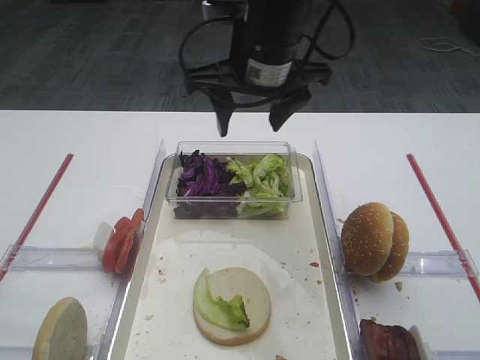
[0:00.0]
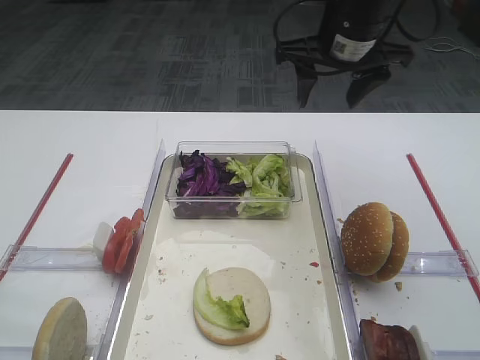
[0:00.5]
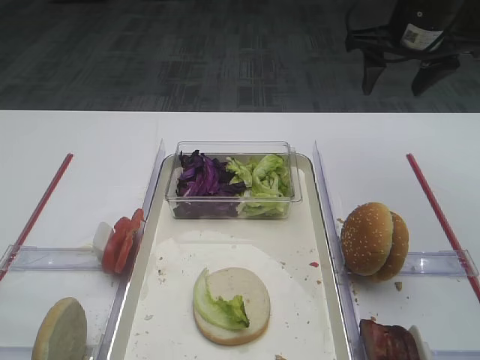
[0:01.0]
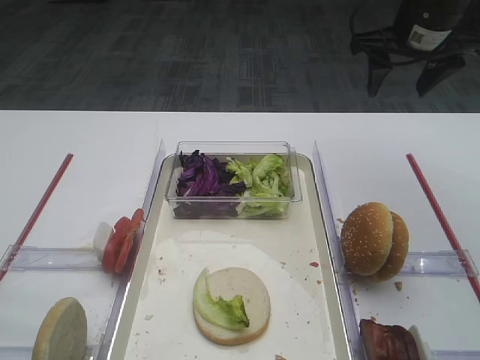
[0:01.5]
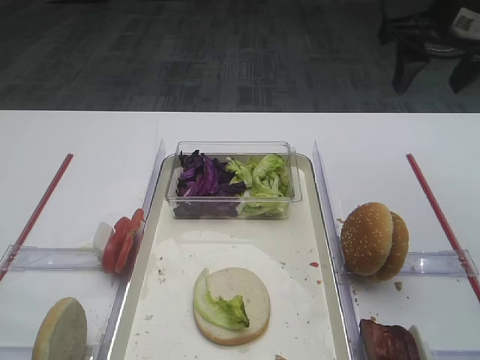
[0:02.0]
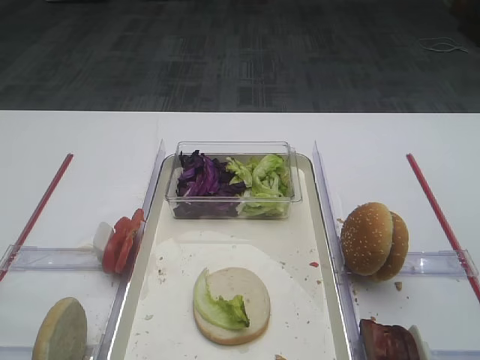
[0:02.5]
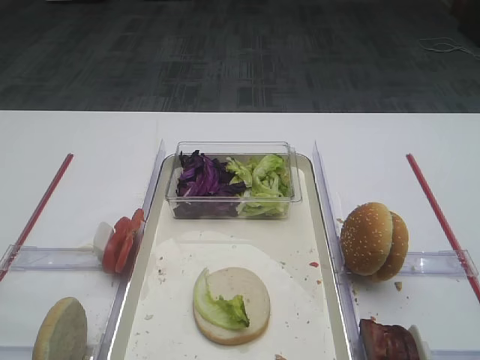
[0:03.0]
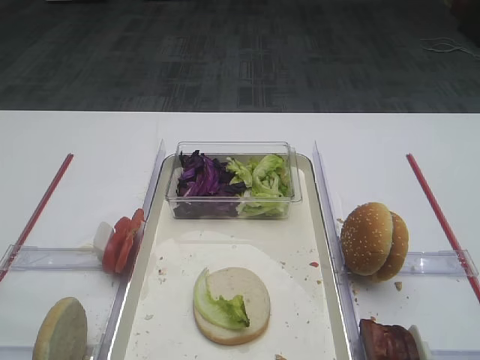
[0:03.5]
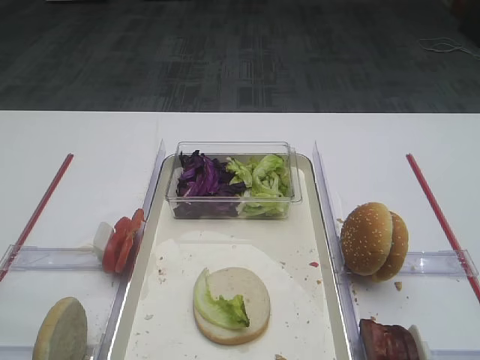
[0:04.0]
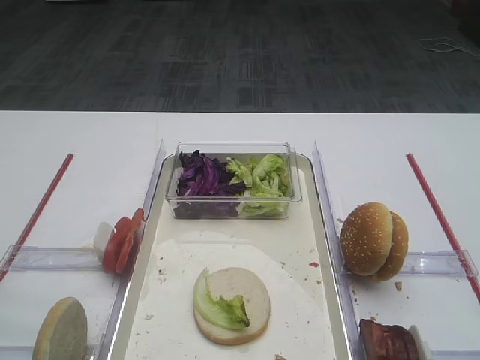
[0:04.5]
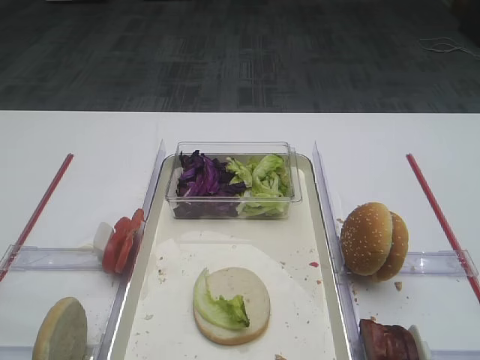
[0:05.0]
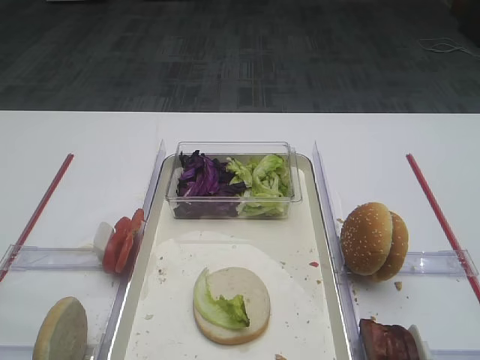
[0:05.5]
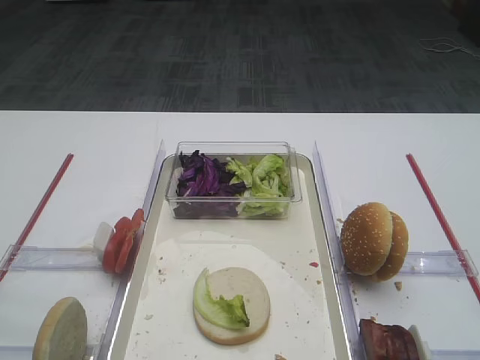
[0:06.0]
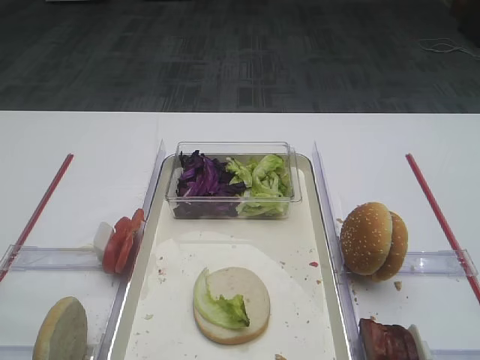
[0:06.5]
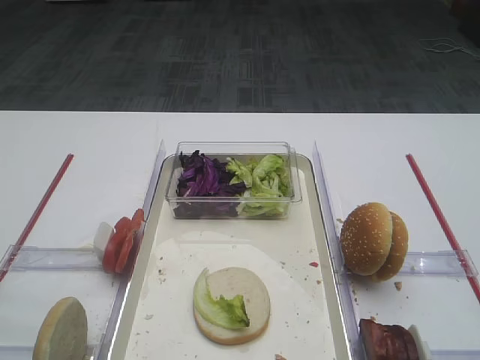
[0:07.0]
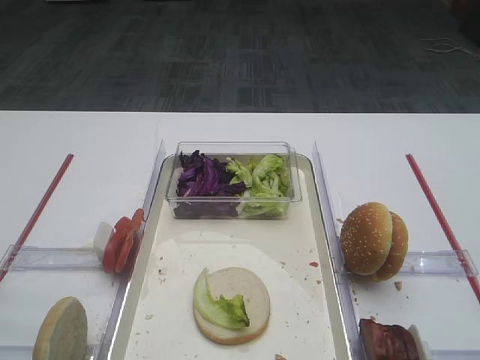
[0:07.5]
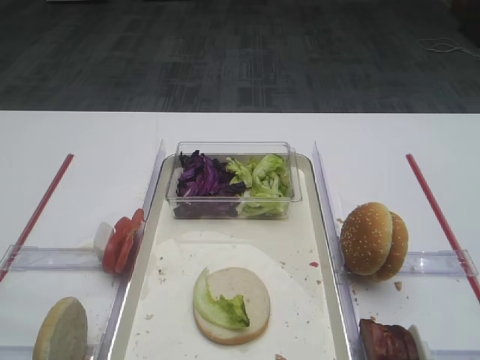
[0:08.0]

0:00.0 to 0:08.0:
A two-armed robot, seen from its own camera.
0:00.0 to 0:02.0: The right gripper is displaced to the right by roughly 20 cm.
0:02.0 to 0:04.0: The right gripper moves backward, some 40 cm.

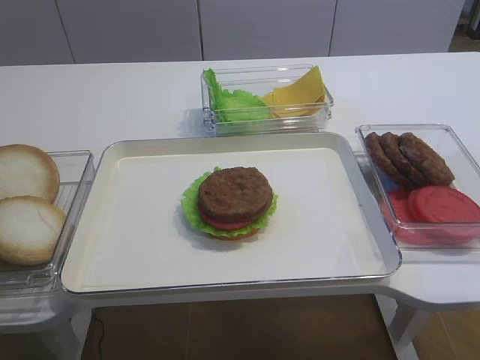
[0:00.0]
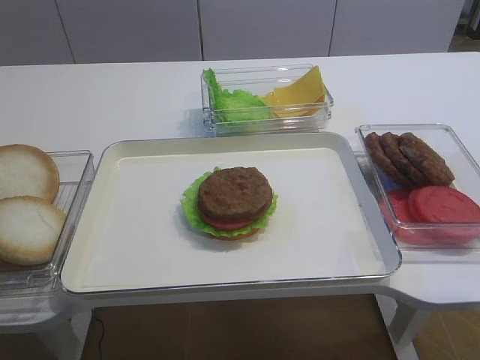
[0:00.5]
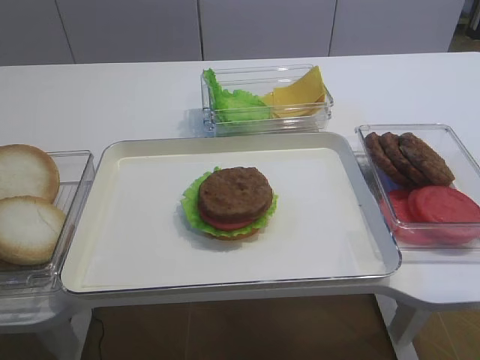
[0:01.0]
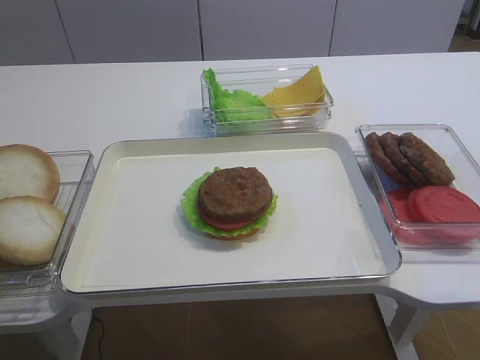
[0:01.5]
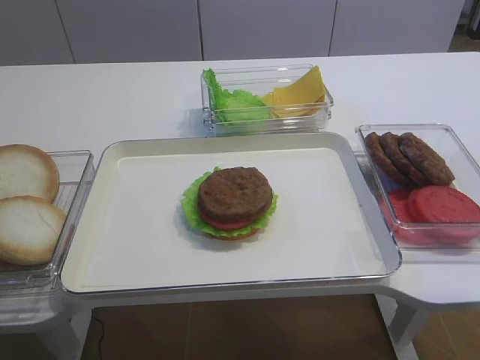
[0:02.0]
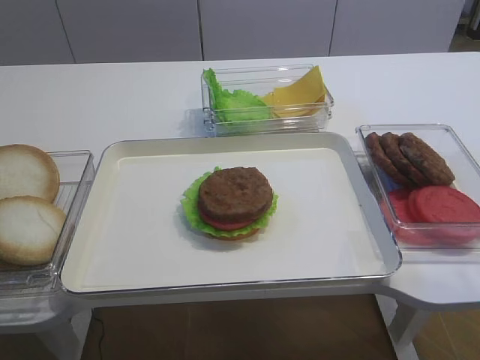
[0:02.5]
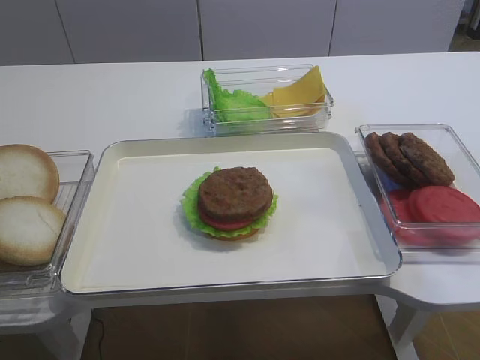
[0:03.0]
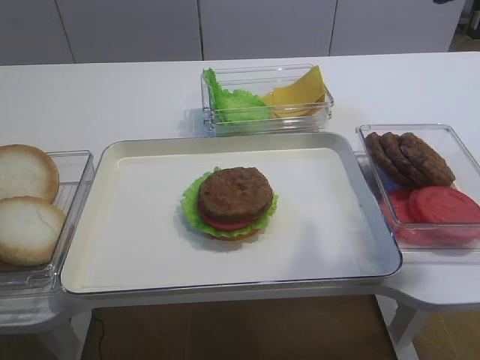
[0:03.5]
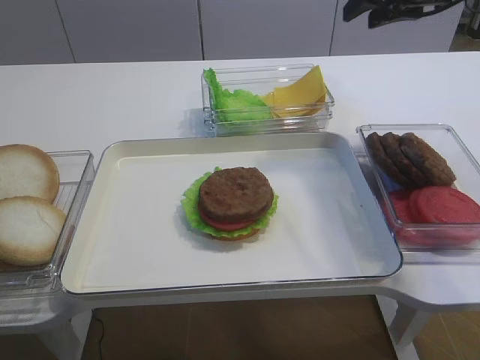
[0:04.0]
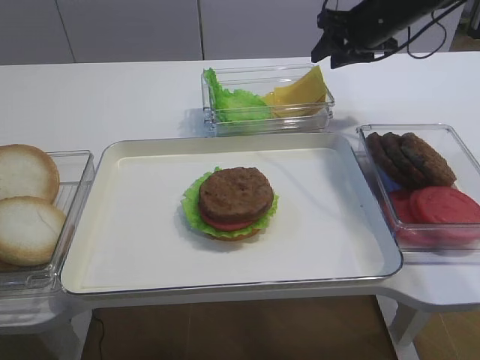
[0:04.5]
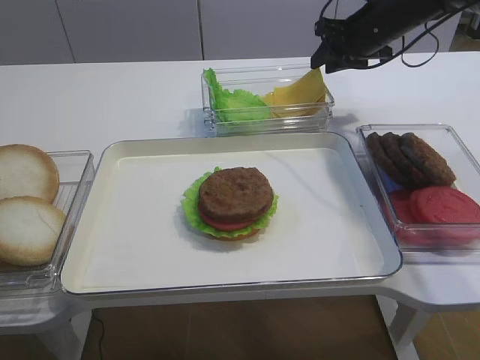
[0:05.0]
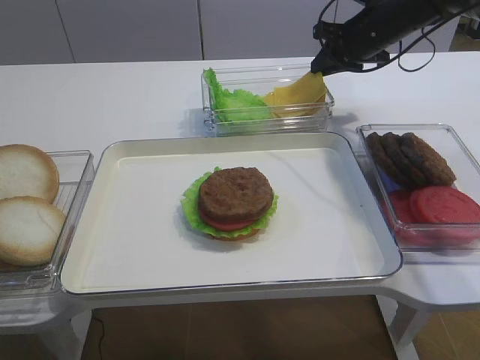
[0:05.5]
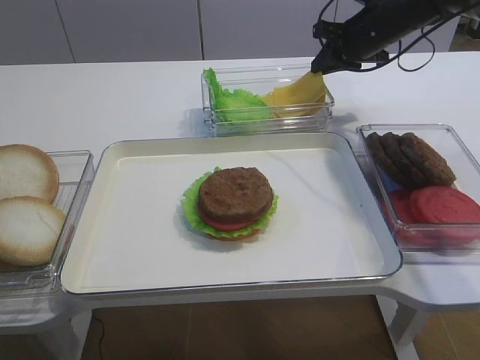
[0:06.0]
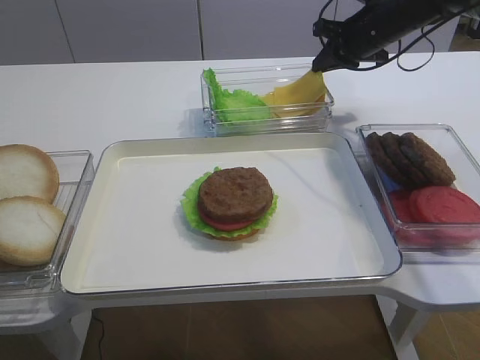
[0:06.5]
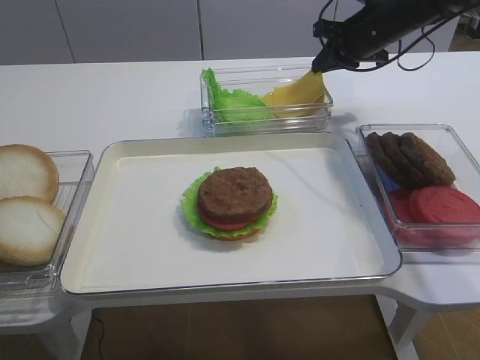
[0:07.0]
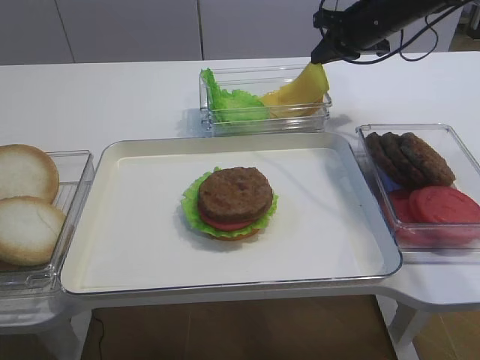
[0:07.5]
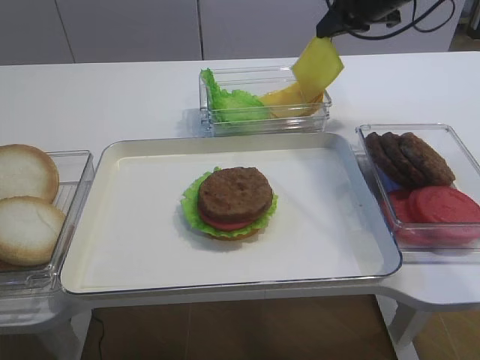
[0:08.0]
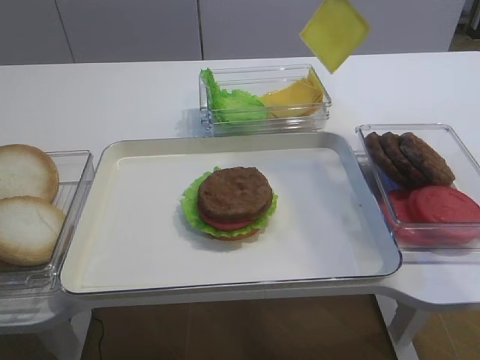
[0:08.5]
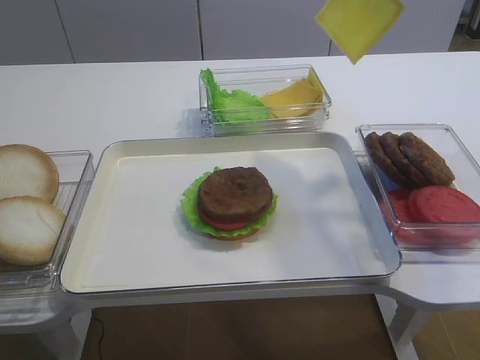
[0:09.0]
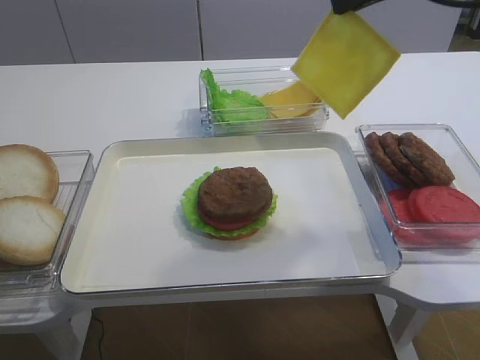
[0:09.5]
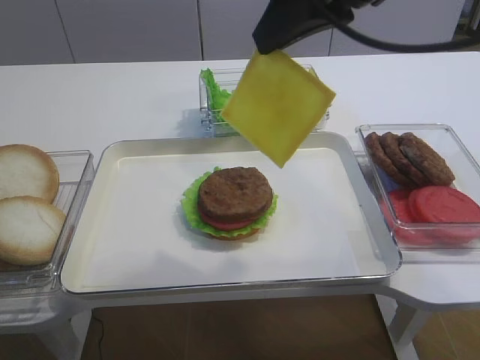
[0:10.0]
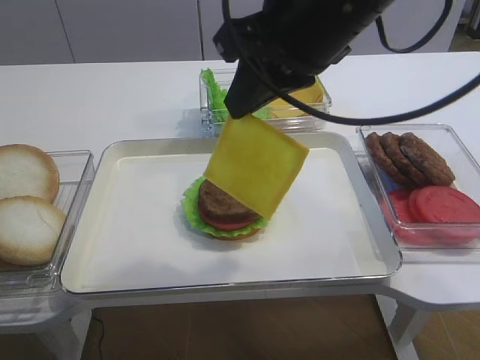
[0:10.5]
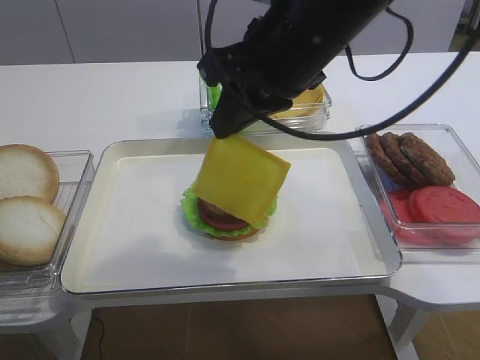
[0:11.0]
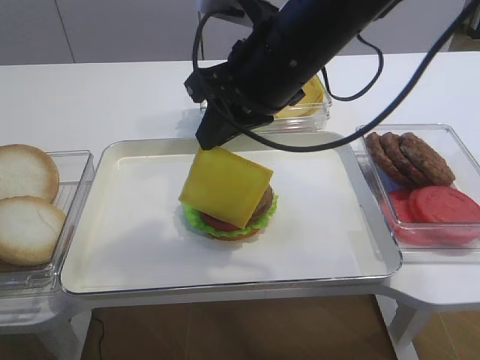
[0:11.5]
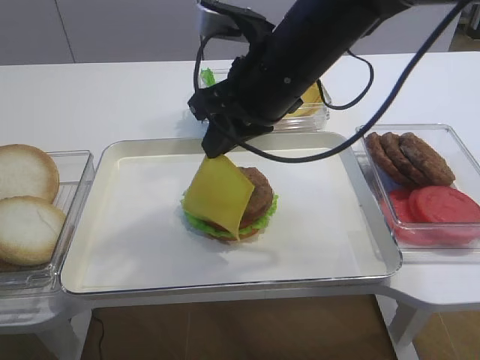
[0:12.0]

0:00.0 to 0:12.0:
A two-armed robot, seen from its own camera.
Step, 0:00.0 to 0:08.0: Pick up the cheese slice with the right gripper.
0:02.0 to 0:04.0: The right gripper is displaced forward by roughly 40 cm.
0:04.0 to 0:06.0: The right gripper shifts roughly 15 cm downward and forward, and closes.
0:06.0 to 0:08.0: The right gripper shifts about 5 cm upward.
0:08.0 to 0:10.0: The right gripper is displaced backward and upward by about 25 cm.
0:10.0 to 0:12.0: The right gripper goes roughly 15 cm downward and to the left.

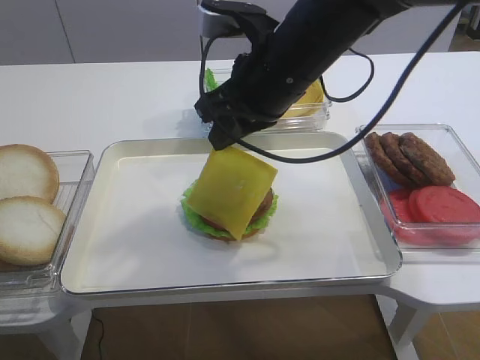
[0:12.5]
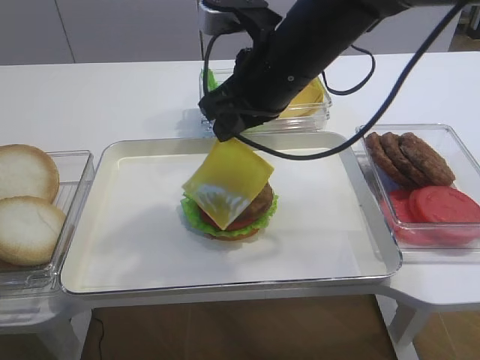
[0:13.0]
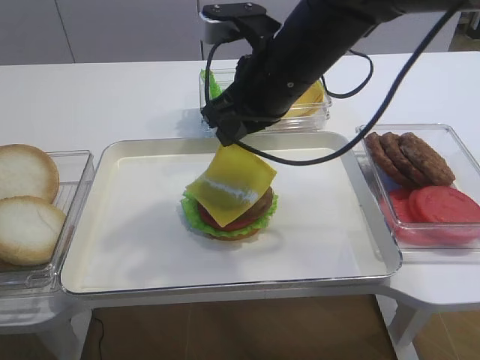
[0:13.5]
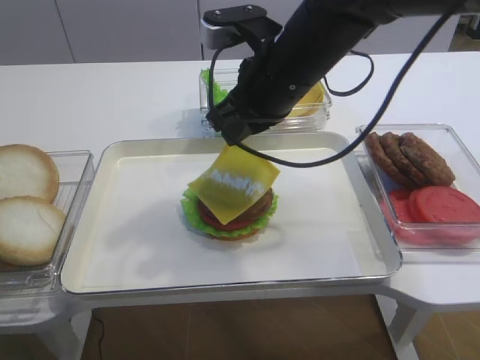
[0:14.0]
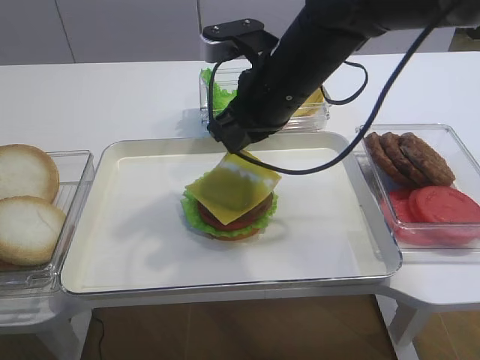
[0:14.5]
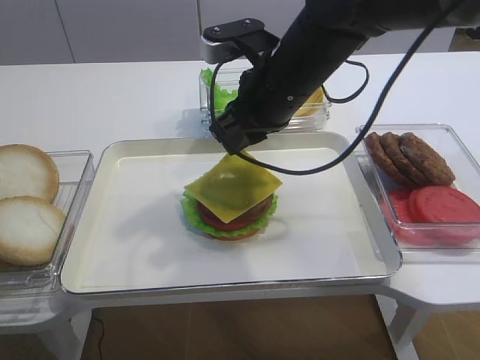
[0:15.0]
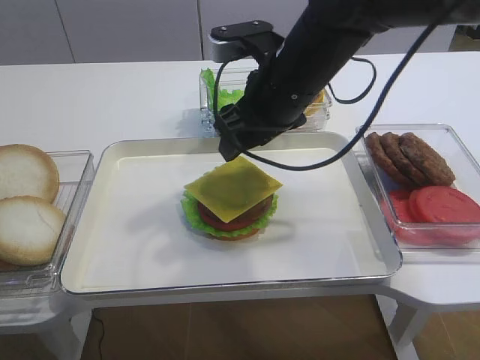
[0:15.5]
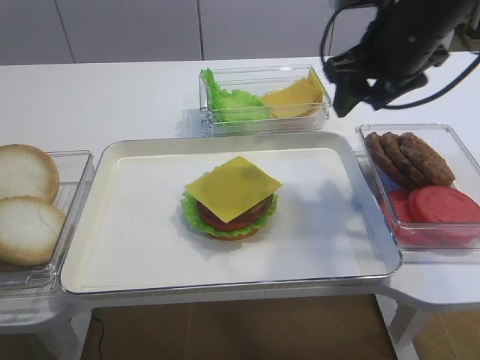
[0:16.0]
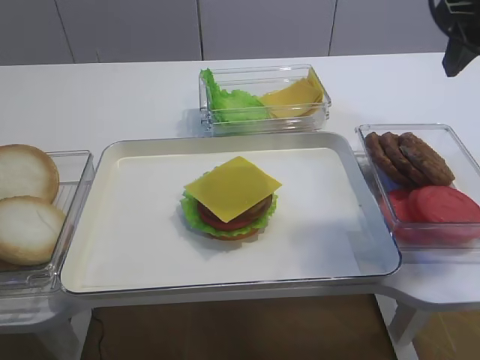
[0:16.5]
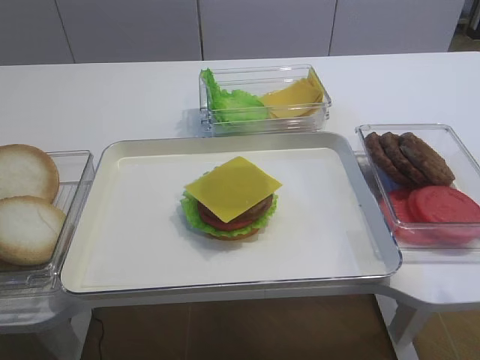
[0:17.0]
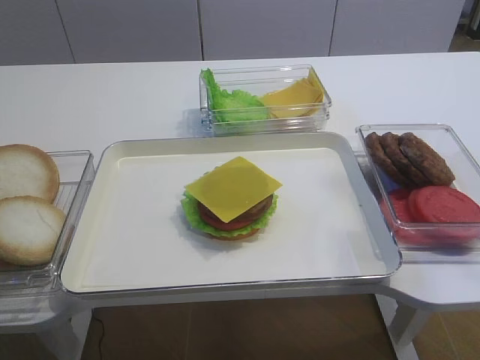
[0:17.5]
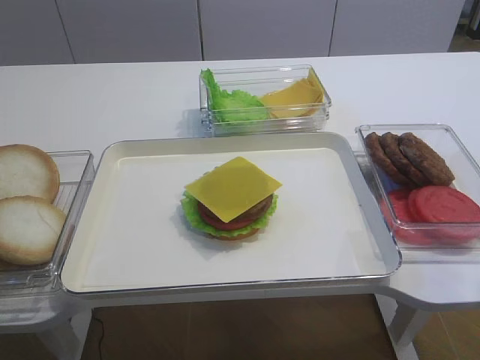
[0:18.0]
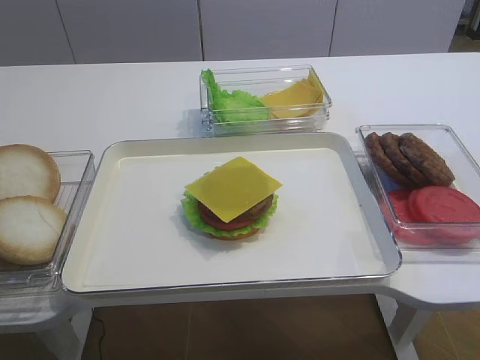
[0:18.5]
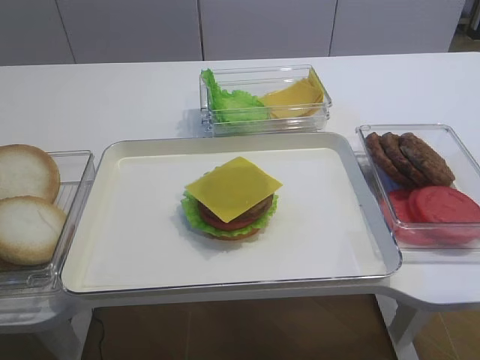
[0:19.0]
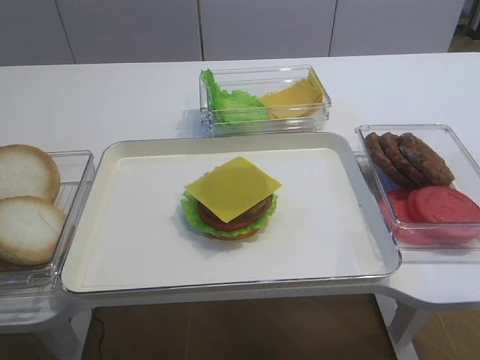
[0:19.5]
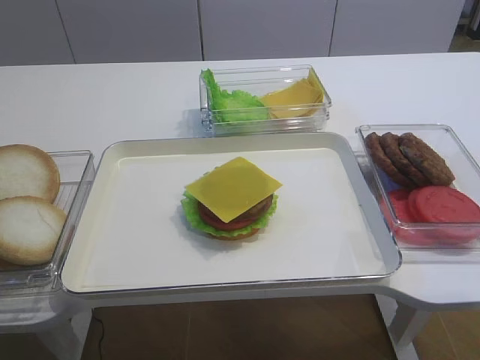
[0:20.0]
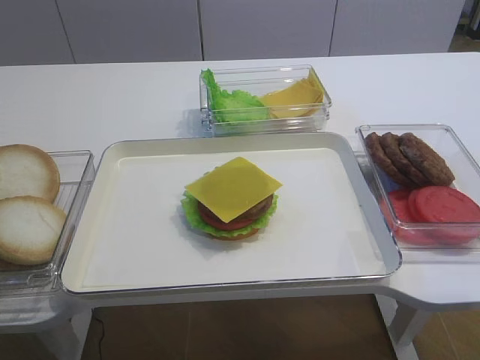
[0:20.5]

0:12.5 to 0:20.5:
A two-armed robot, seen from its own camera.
Step, 0:12.5 to 0:15.0: Place the cheese slice on the cutlet with the right gripper.
0:12.5 to 0:14.5: The grippers stay close to where they were, moving slightly.
0:14.5 to 0:16.5: The right gripper travels to the right and upward by roughly 20 cm, and opens.
0:16.5 to 0:18.5: The right gripper heads backward, covering some 35 cm.
